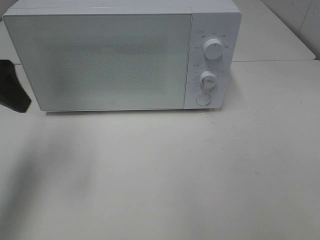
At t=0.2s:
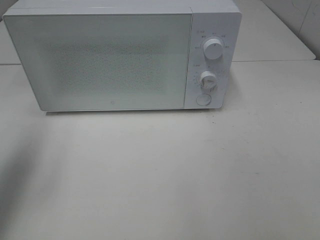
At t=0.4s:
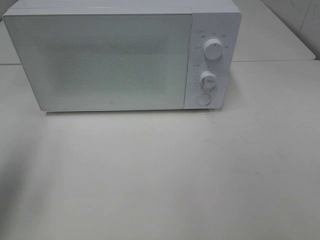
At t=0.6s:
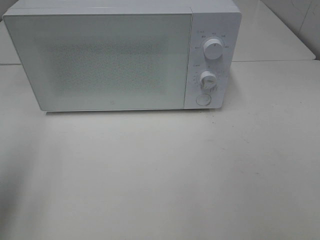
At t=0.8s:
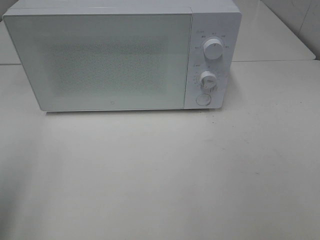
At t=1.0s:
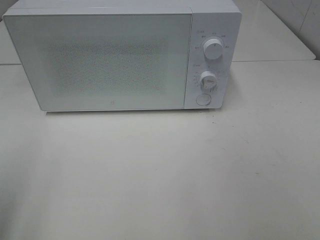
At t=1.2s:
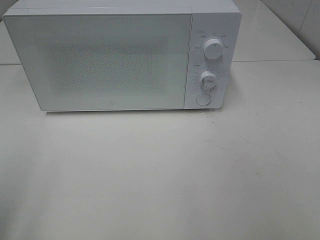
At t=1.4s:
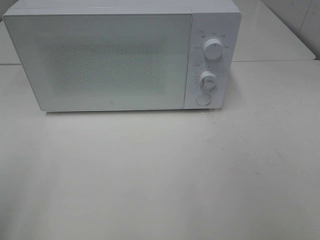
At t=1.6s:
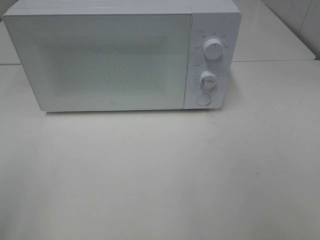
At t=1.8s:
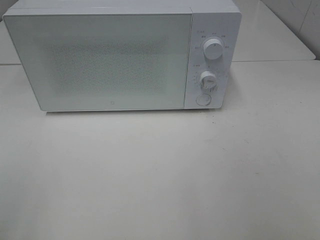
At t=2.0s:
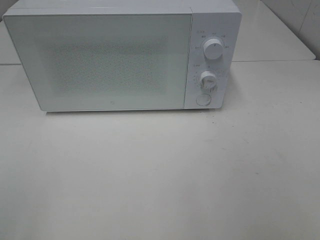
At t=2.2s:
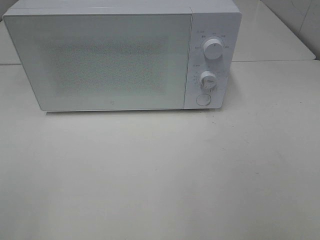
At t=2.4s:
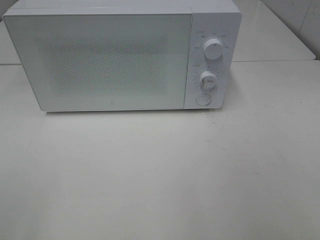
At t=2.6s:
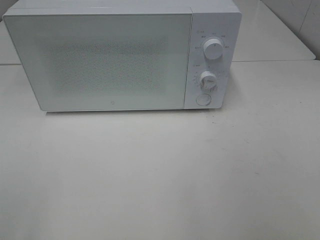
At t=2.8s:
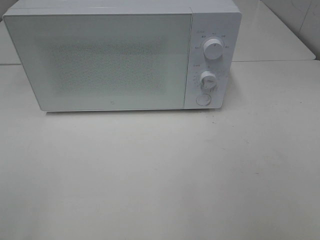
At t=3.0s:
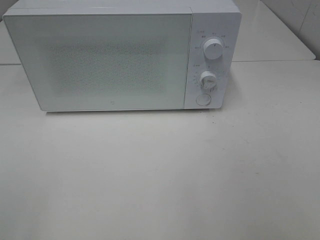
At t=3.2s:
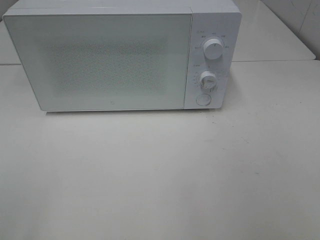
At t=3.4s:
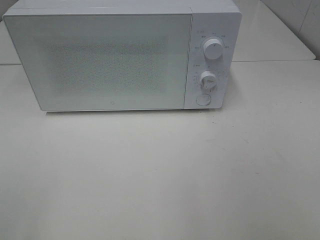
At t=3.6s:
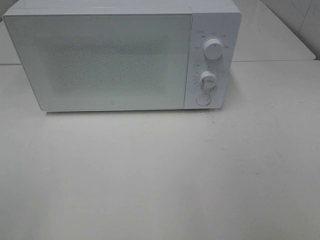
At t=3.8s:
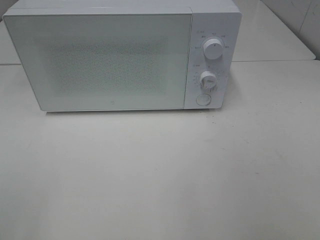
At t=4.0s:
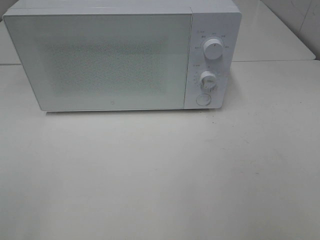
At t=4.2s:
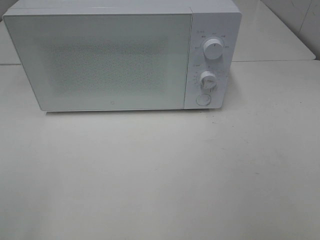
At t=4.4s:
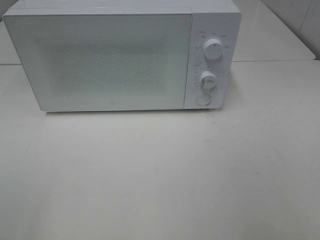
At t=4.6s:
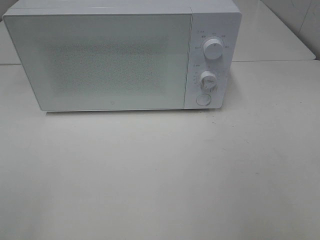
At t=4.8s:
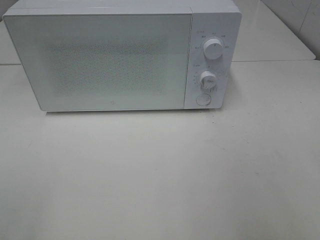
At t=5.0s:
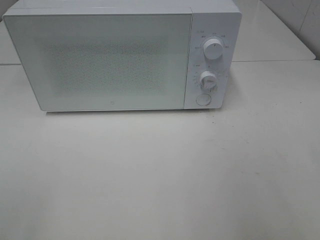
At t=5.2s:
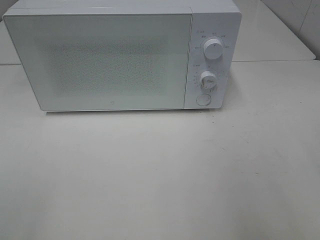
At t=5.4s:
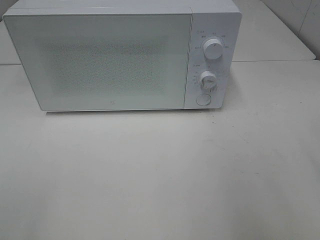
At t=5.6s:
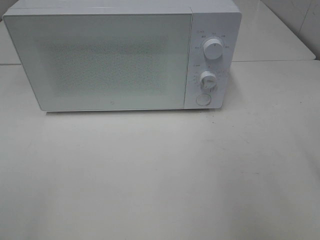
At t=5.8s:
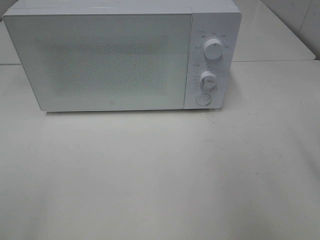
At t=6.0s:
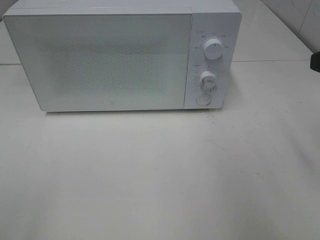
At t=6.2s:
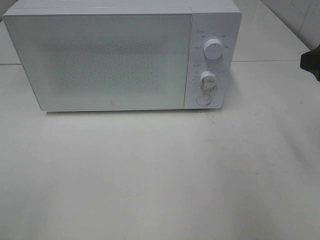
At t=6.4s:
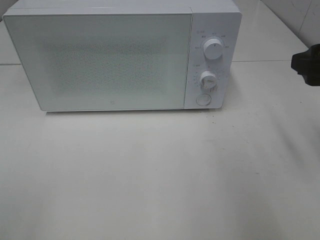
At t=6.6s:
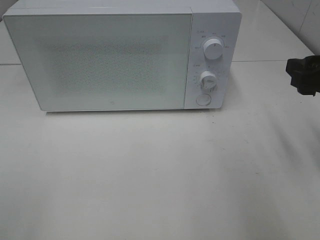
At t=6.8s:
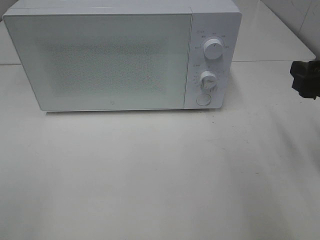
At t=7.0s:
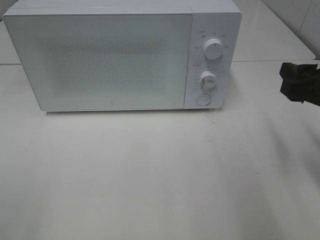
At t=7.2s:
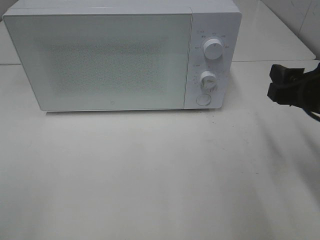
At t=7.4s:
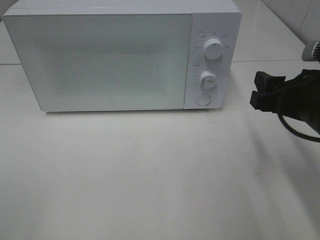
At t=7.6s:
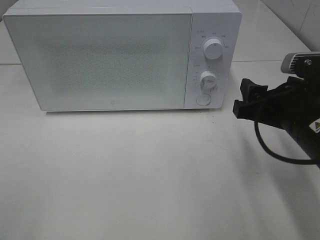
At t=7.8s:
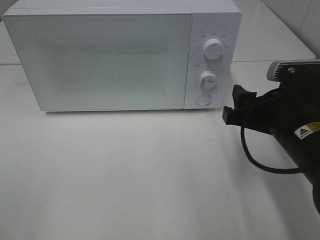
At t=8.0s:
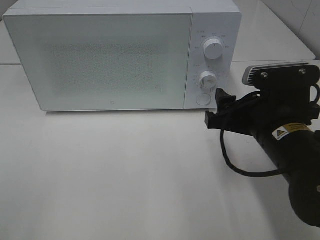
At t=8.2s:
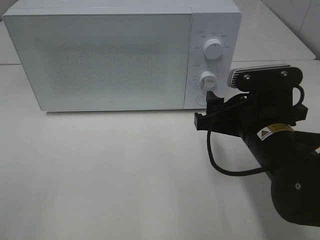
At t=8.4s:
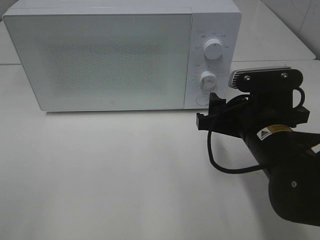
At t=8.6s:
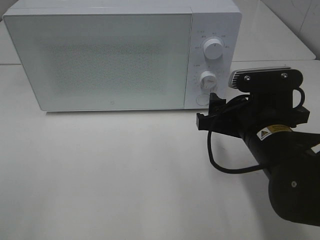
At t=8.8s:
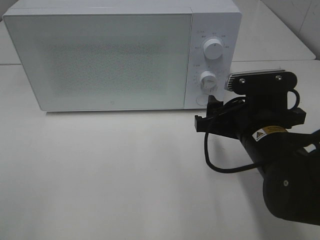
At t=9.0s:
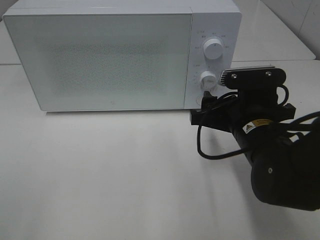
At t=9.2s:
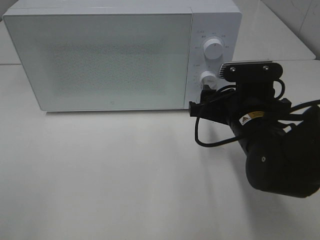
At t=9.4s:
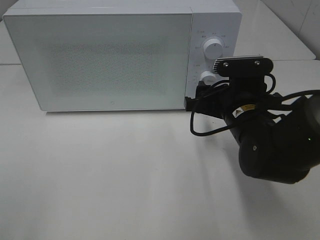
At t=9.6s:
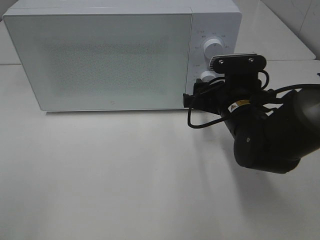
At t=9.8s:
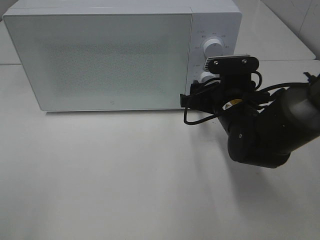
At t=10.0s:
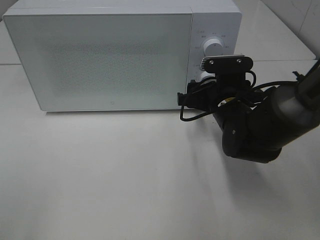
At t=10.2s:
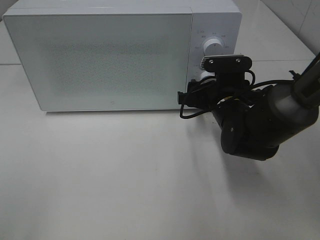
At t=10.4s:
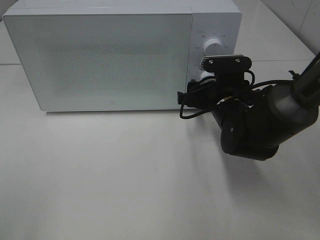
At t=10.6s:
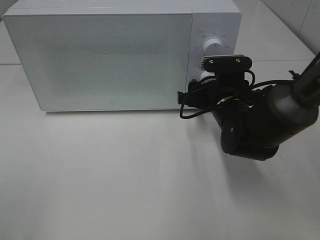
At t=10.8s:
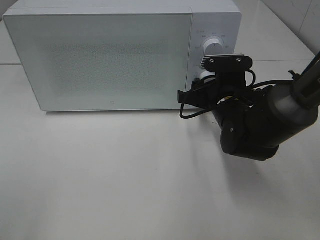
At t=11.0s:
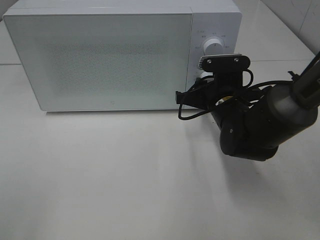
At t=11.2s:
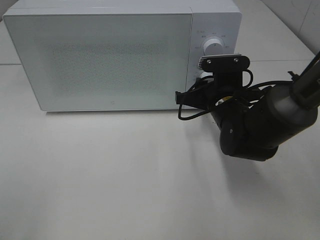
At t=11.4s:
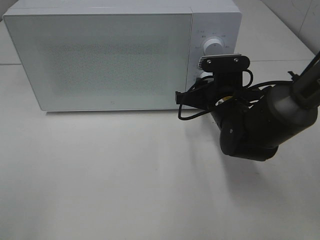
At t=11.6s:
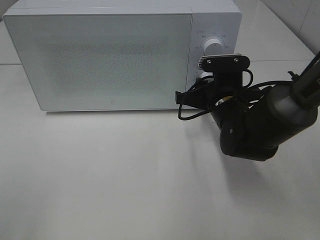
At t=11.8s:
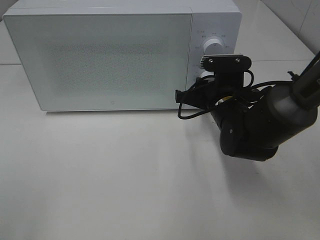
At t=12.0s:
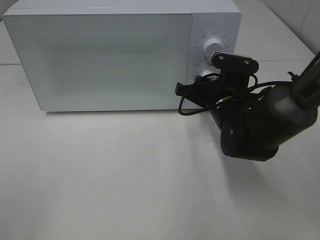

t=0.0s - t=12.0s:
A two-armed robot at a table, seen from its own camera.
Task of the whole recording: Heat Sandwich.
t=0.0s - t=1.6s: The left gripper shifts about 20 cm backward.
t=6.0s - t=7.6s: The right gripper goes some 15 cm downward and to the left.
t=7.6s - t=9.0s: The right gripper shifts about 5 cm to the left.
t=9.0s - t=10.4s: The right gripper goes about 10 cm forward.
t=10.4s - t=12.0s: The right gripper closes.

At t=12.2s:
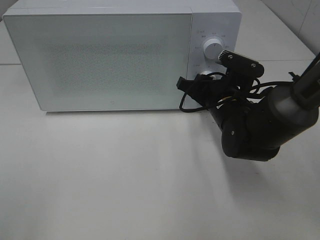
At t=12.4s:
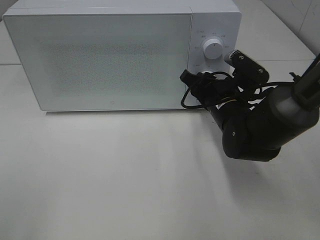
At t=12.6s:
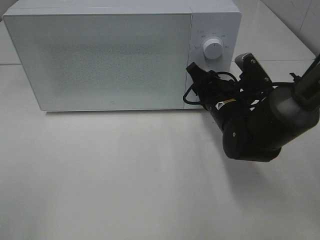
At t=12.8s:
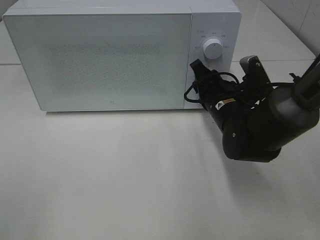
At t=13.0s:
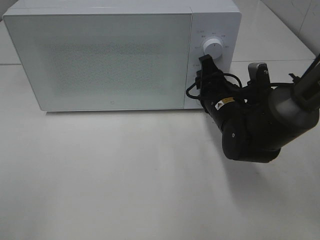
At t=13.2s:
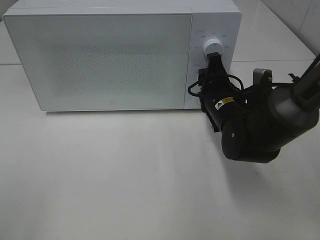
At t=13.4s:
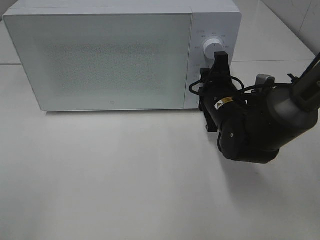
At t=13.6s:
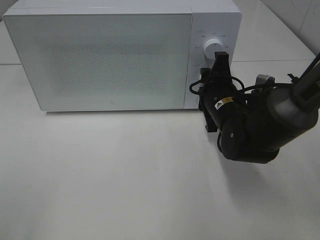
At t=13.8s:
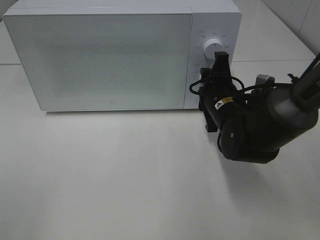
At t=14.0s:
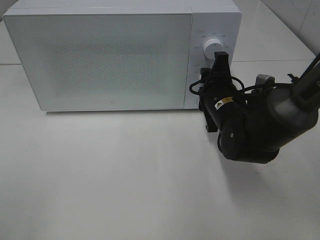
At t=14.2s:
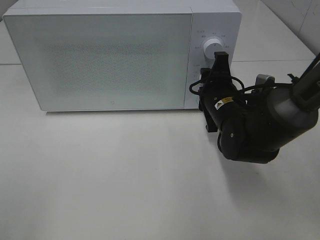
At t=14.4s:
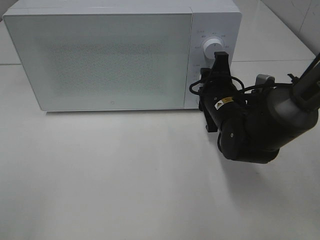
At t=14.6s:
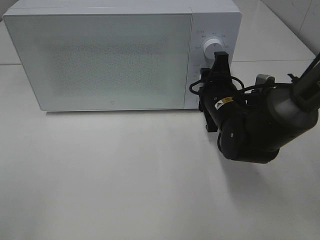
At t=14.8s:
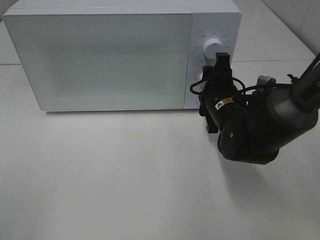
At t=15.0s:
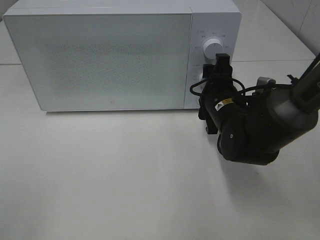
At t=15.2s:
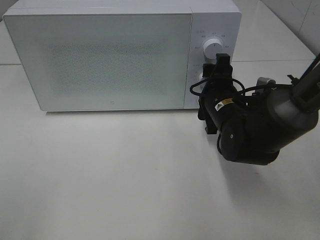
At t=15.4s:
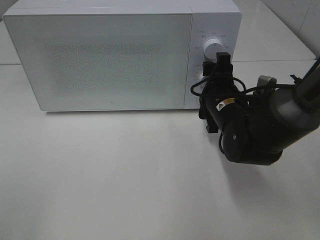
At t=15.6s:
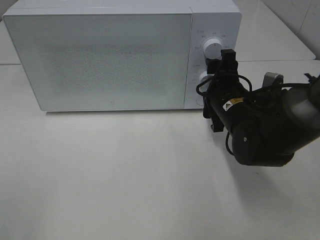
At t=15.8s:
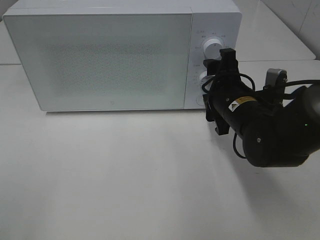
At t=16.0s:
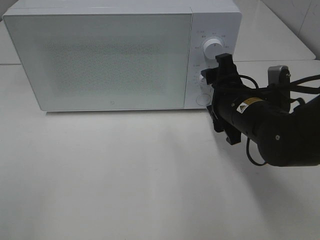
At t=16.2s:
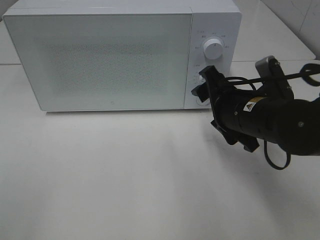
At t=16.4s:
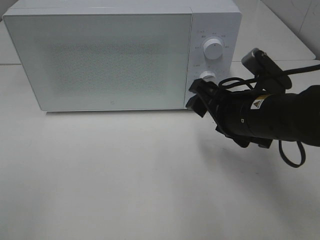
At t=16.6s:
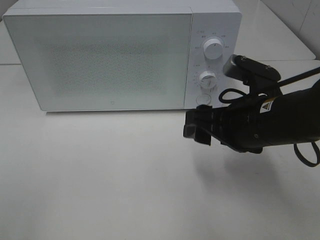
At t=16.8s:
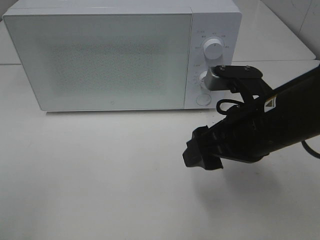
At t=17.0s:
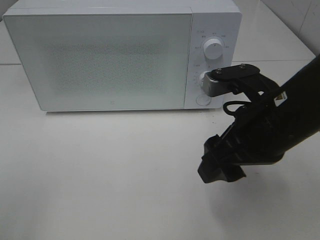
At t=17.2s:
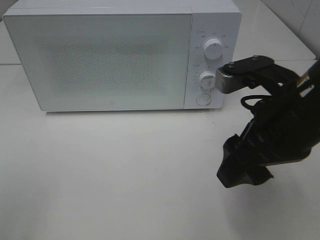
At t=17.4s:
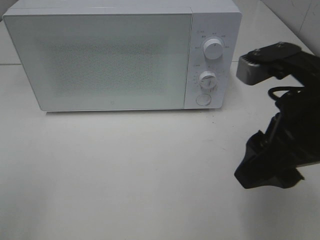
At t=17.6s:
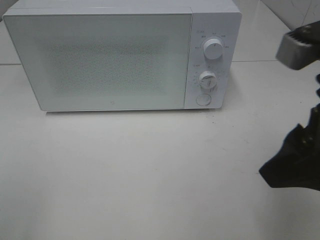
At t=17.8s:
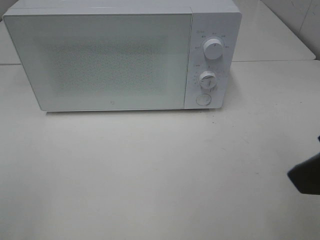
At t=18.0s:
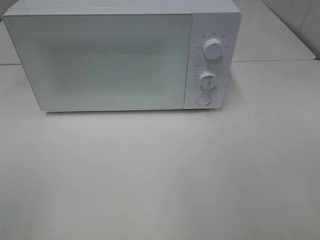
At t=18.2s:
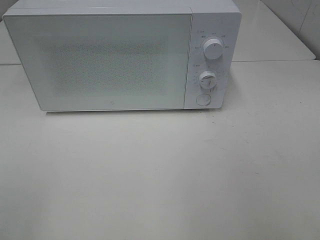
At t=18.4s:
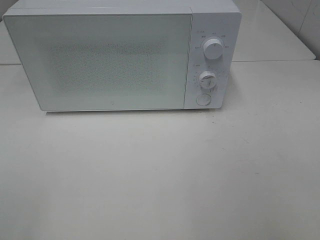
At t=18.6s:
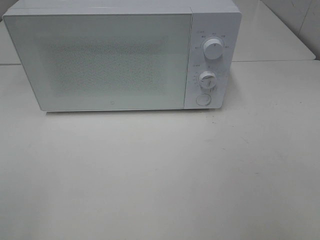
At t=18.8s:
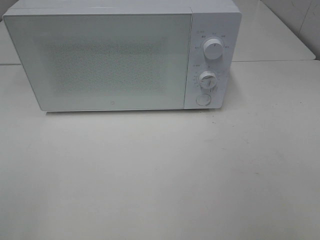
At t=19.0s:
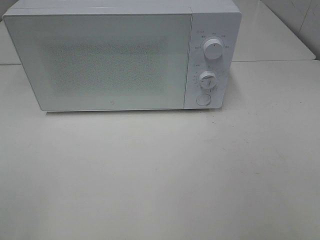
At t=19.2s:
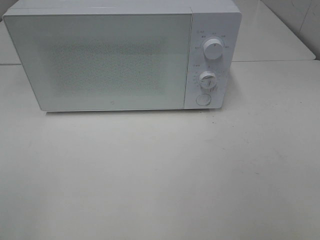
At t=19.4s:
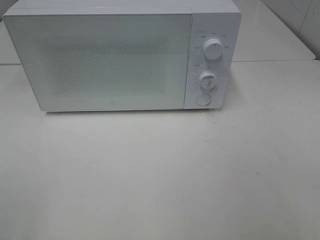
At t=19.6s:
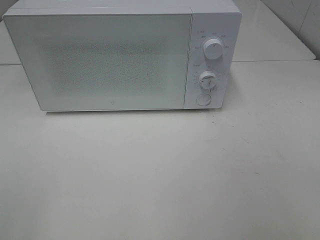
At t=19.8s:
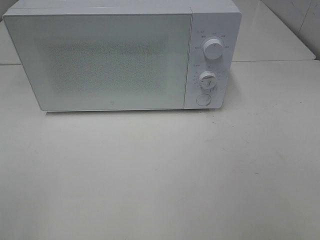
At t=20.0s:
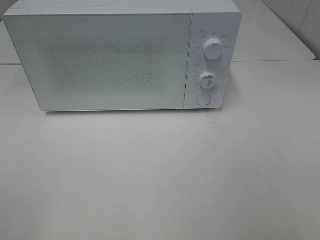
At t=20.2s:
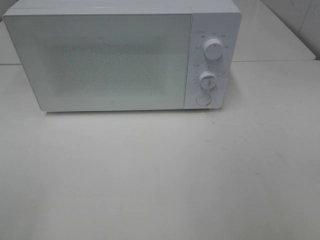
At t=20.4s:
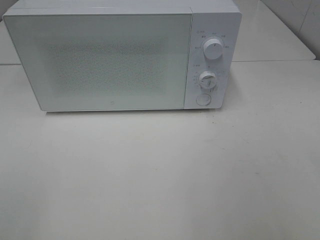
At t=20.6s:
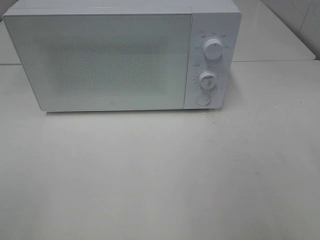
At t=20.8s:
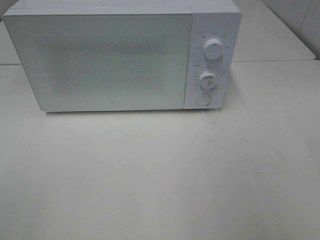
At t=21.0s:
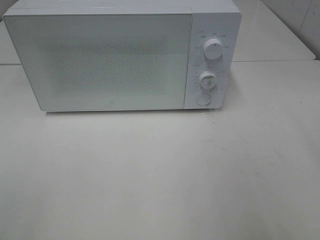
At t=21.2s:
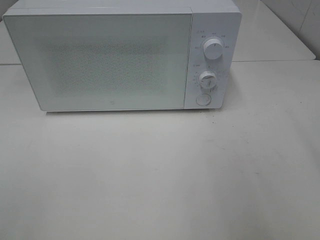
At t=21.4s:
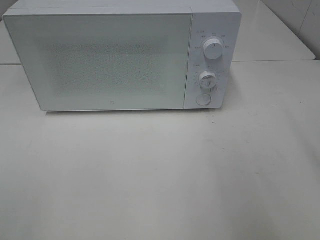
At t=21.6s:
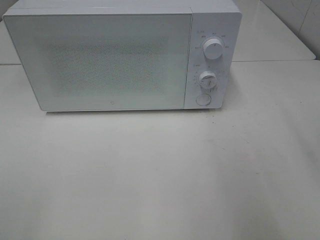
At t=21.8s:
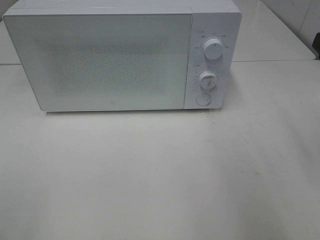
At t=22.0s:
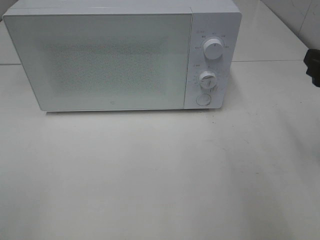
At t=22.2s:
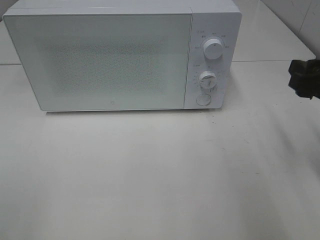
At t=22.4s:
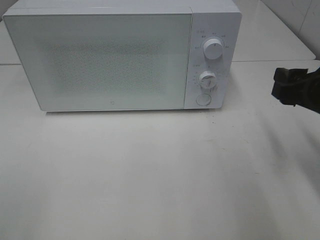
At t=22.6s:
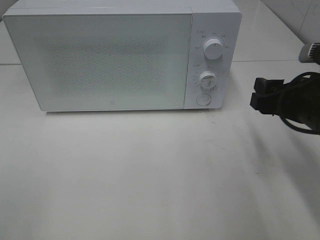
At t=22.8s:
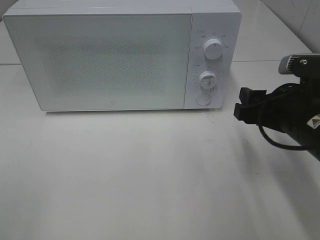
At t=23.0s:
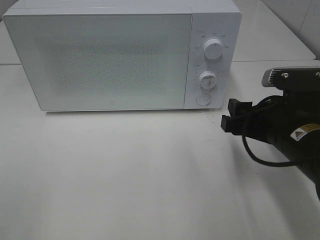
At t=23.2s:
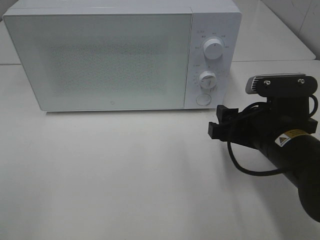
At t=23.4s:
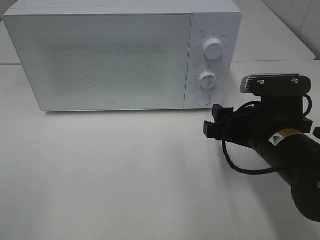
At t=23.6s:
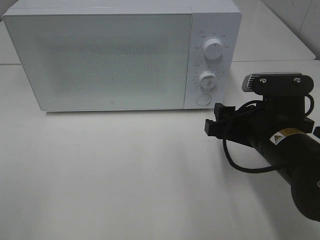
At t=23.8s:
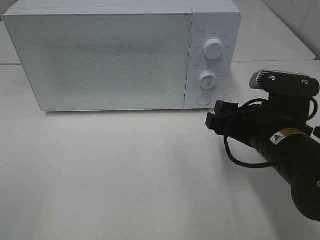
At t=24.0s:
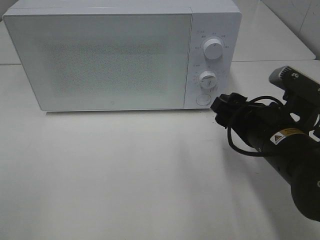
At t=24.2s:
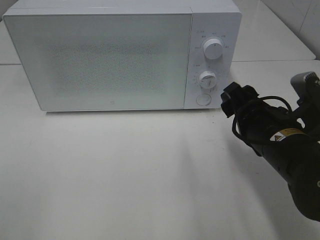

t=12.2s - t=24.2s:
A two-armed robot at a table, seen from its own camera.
Task of the whole recording: Heat Sandwich.
Step, t=12.2s - t=16.0s: Right hand: twist timer button.
t=13.8s - t=15.2s: Neither gripper changes place.
t=15.2s - t=16.6s: The right gripper heads backward and upward, covering roughly 10 cm.
t=16.6s - t=18.2s: The right gripper goes some 25 cm backward, upward and to the right.
t=21.2s - t=22.6s: The right gripper travels downward and forward by about 15 cm.
t=22.6s - t=24.2s: The right gripper goes some 5 cm to the left.
